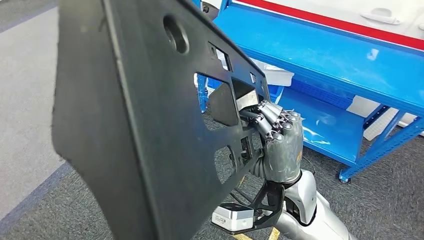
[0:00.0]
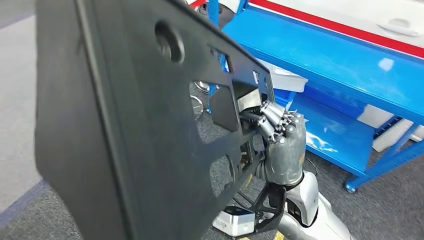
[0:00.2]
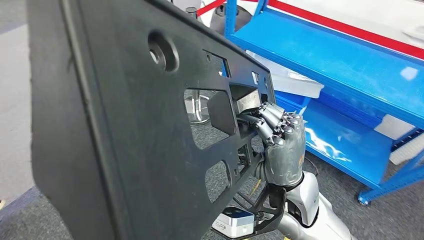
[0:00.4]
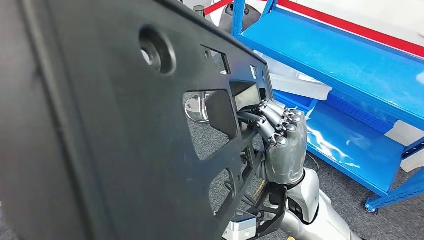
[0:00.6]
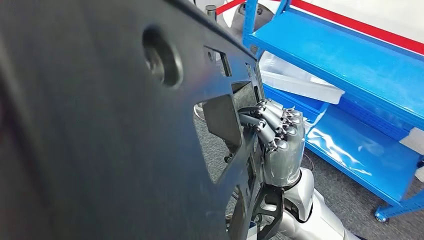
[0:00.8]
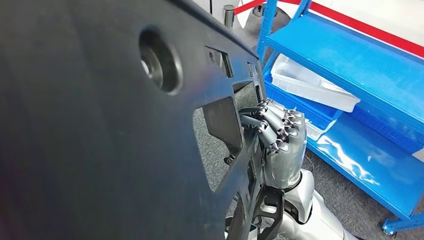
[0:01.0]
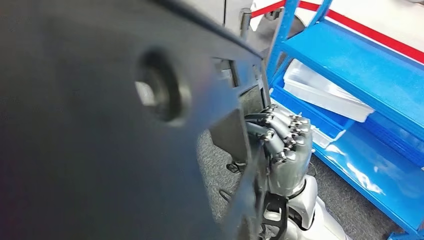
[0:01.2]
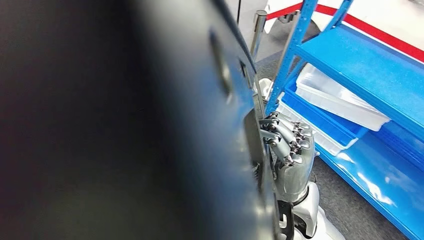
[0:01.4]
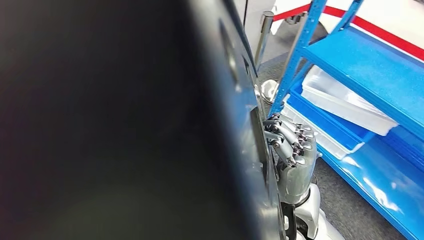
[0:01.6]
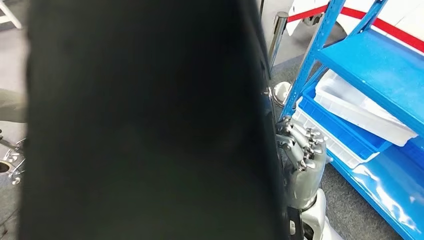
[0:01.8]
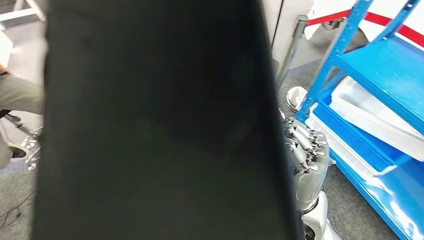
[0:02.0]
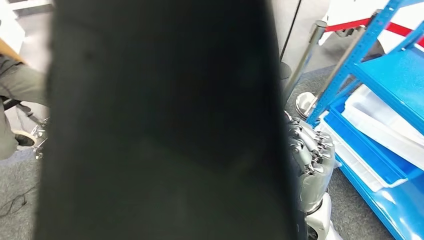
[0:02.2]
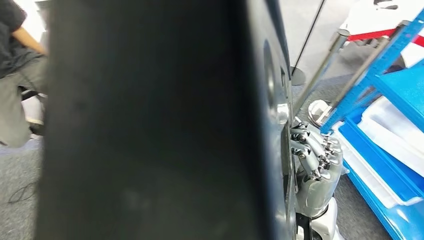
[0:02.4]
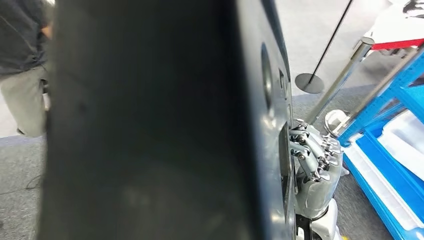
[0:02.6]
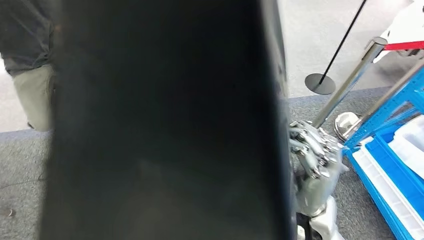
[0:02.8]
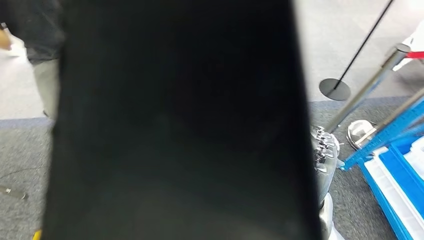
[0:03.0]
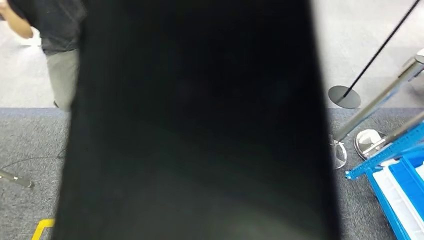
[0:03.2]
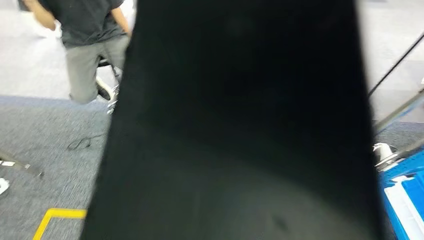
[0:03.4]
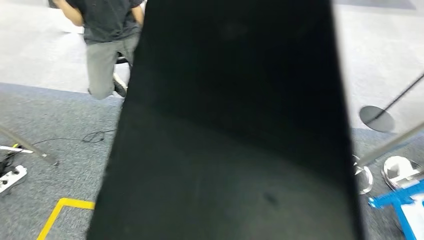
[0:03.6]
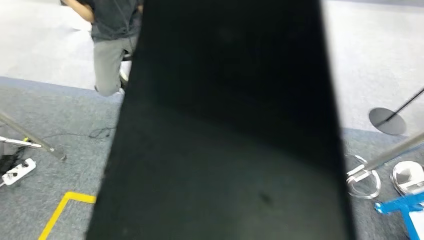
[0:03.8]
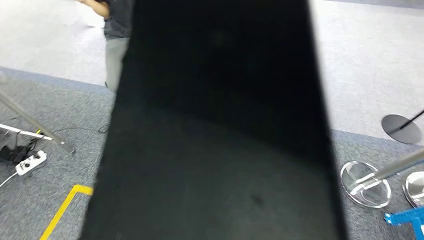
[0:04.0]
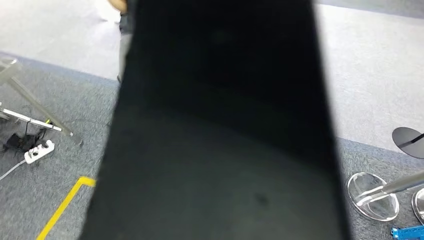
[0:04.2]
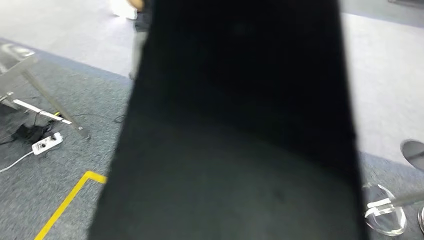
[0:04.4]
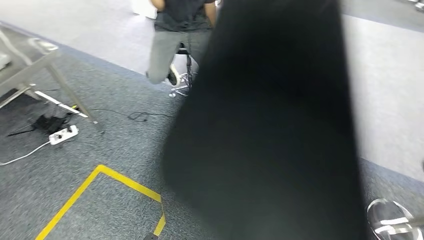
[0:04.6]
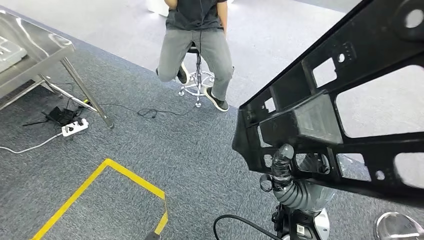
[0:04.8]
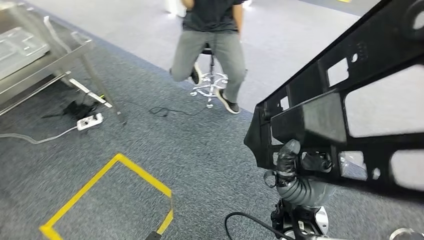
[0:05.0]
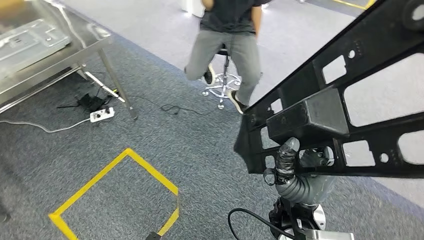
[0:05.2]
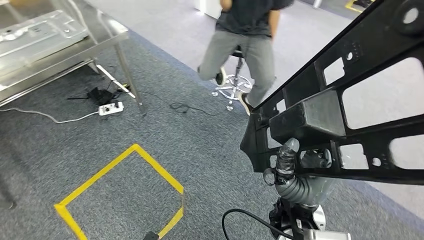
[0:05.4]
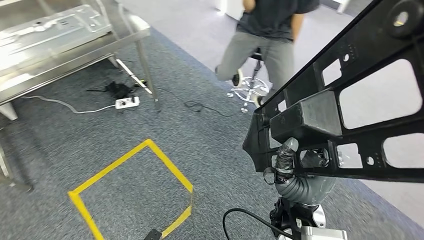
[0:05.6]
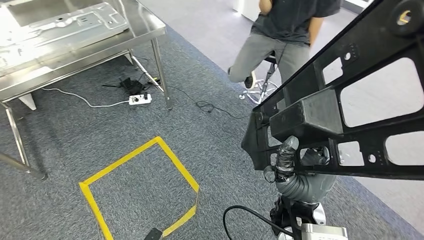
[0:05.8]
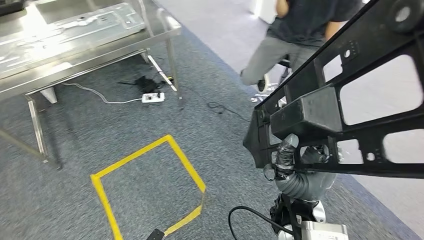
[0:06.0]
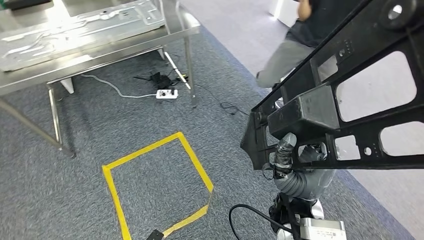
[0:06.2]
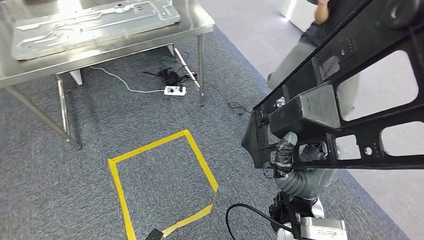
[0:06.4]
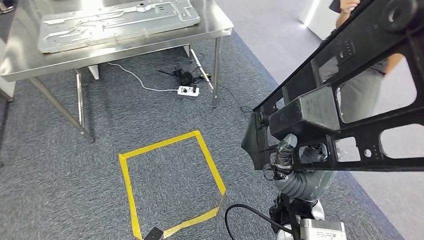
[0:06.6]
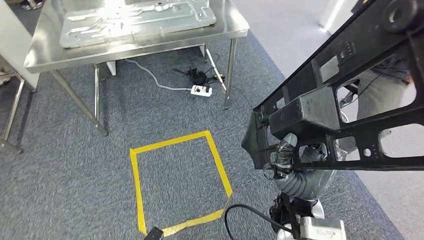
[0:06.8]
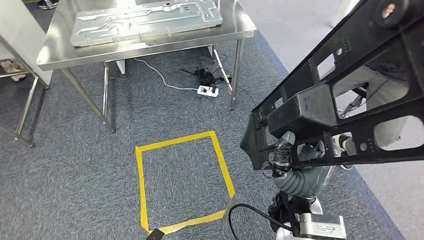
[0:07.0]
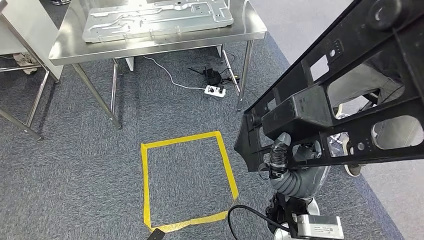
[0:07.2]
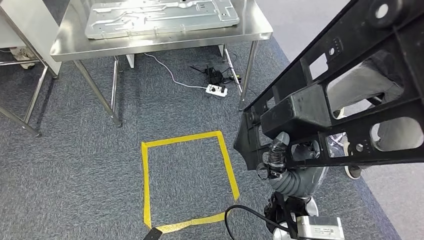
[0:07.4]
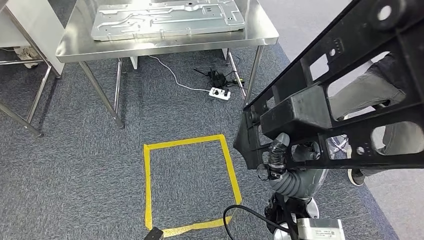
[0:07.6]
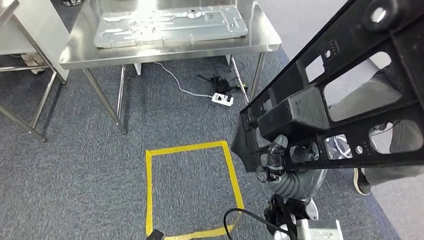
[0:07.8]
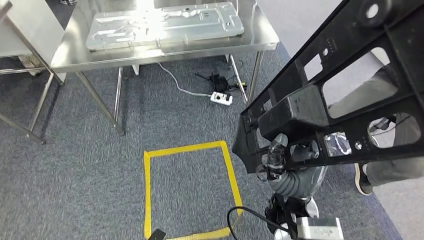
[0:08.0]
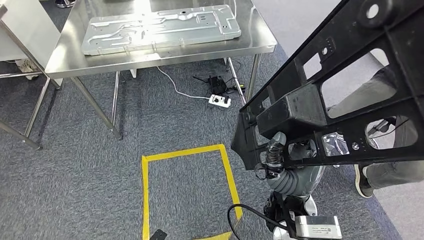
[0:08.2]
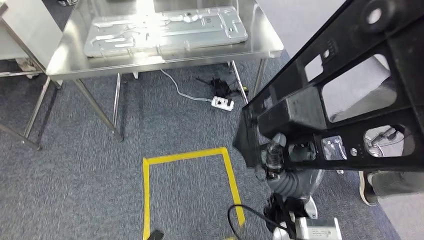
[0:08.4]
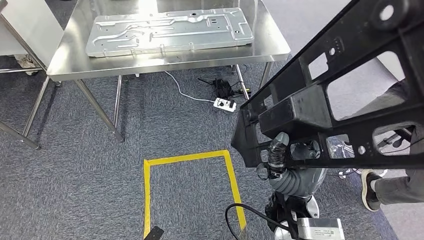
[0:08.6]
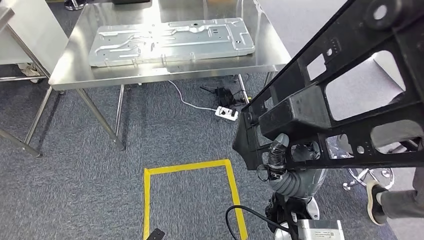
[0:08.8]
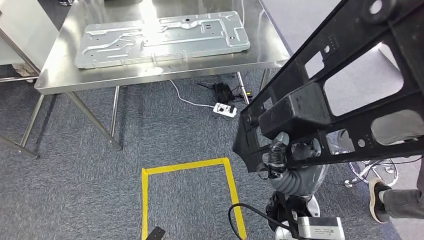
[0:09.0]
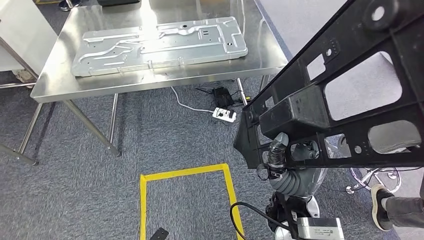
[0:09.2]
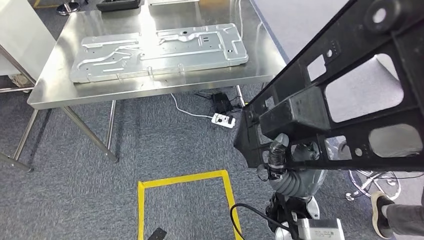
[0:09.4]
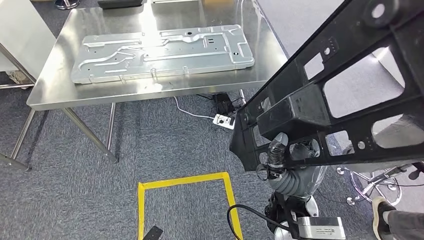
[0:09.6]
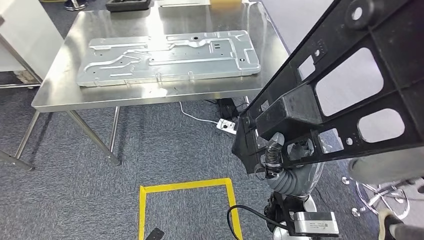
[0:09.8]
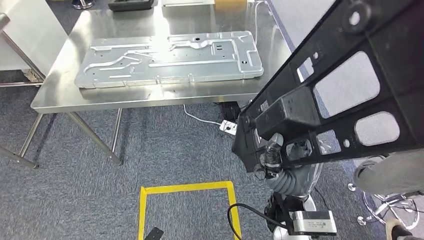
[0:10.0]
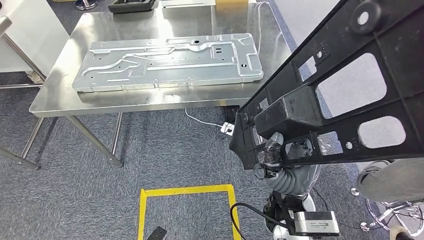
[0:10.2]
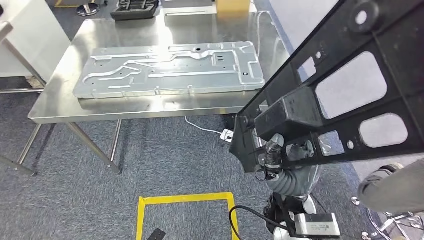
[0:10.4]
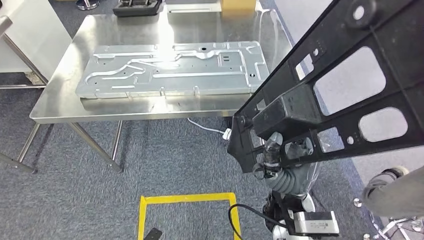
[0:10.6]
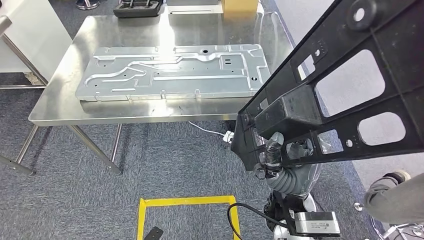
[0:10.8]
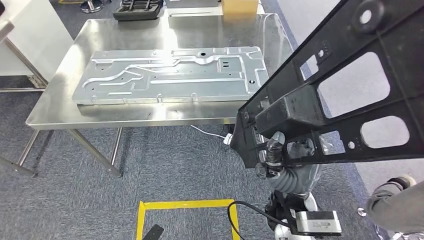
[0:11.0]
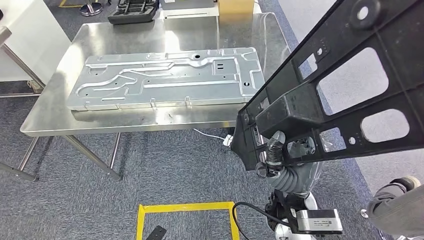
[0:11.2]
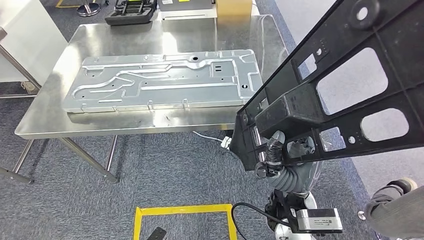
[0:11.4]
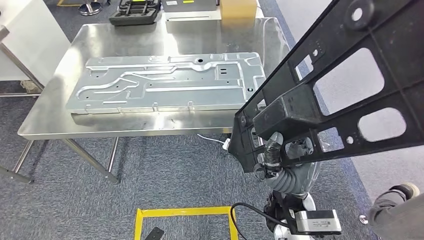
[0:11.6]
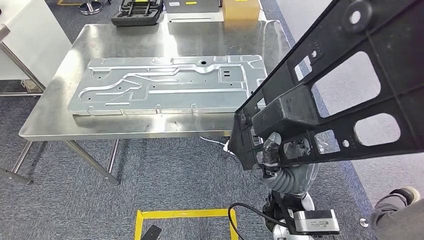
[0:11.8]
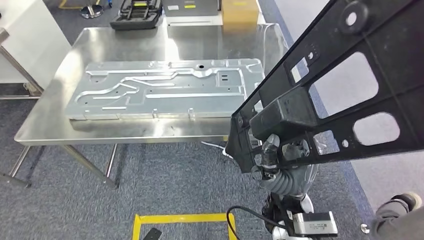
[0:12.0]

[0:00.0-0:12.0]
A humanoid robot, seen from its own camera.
Step, 0:00.0 to 0:09.0: Move the large material to the workbench.

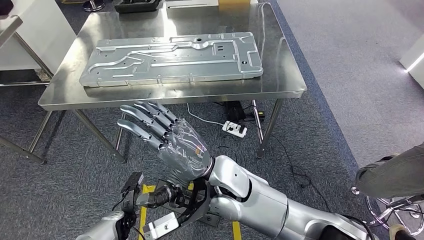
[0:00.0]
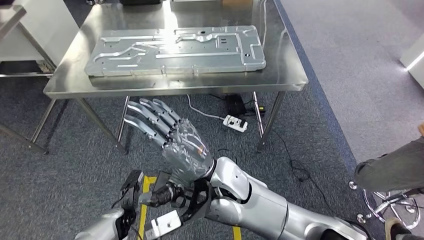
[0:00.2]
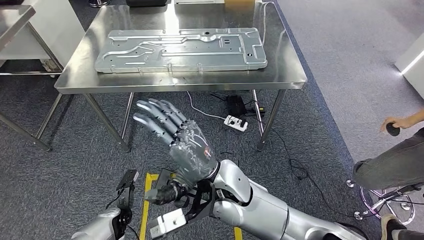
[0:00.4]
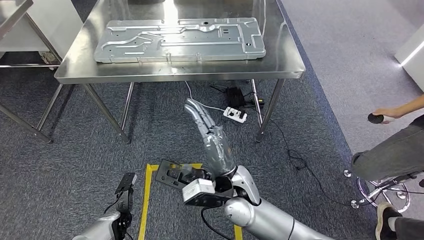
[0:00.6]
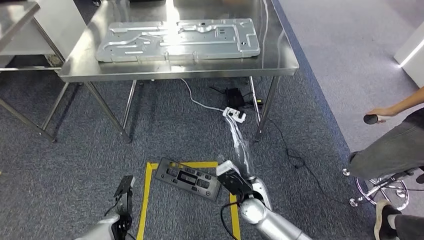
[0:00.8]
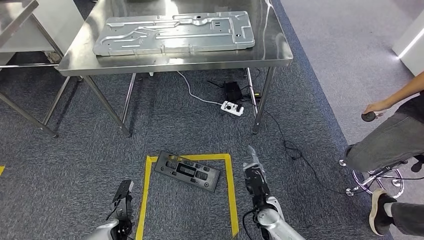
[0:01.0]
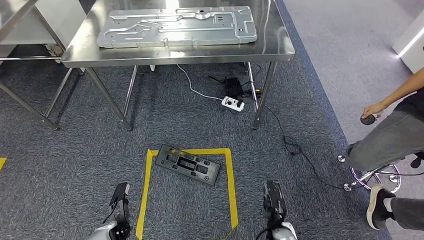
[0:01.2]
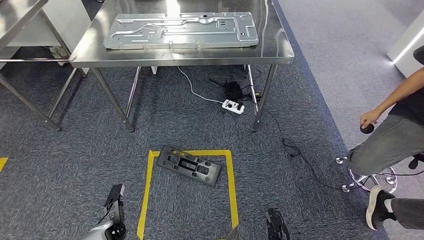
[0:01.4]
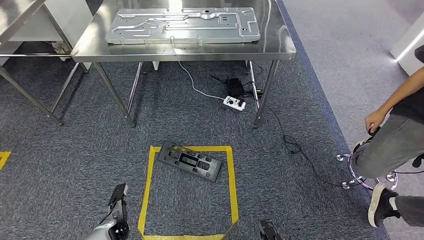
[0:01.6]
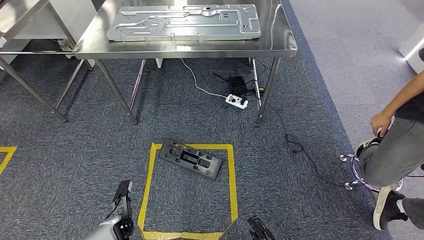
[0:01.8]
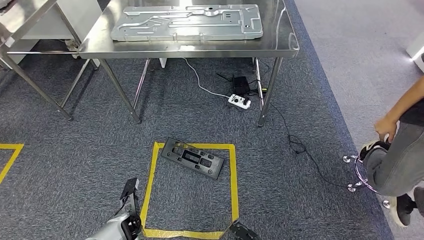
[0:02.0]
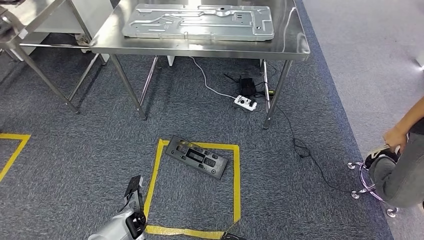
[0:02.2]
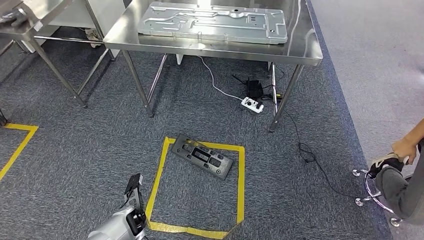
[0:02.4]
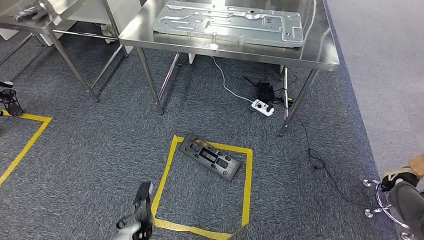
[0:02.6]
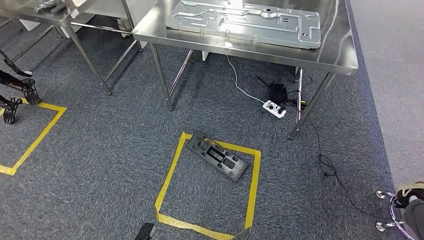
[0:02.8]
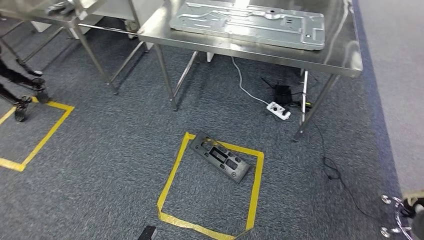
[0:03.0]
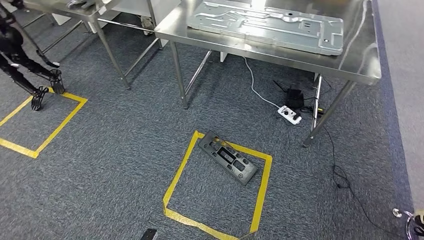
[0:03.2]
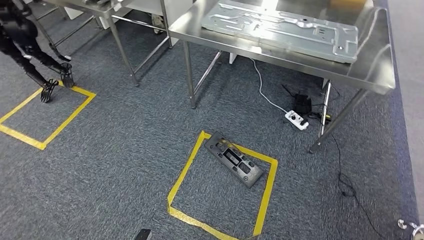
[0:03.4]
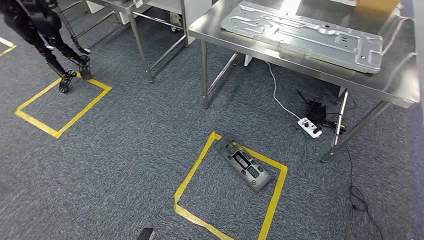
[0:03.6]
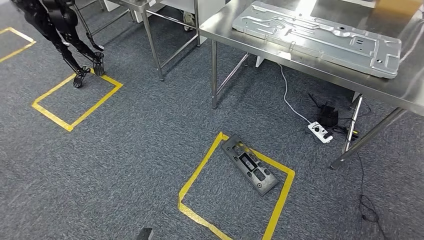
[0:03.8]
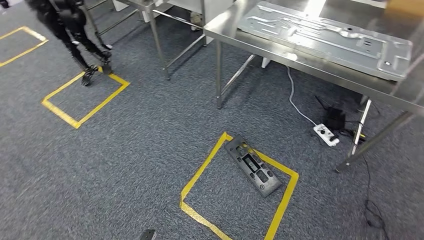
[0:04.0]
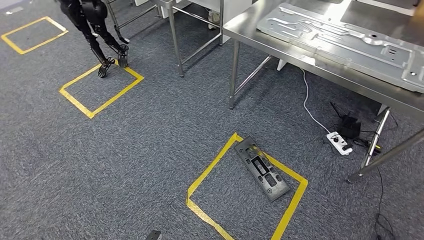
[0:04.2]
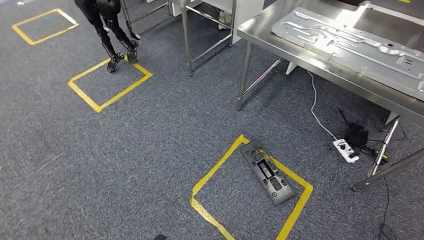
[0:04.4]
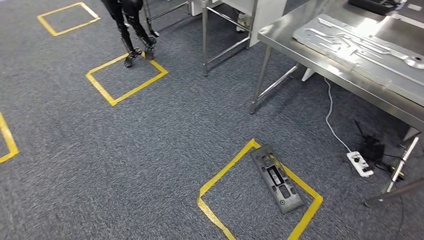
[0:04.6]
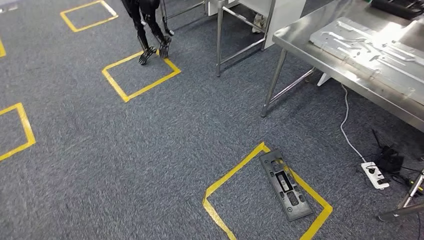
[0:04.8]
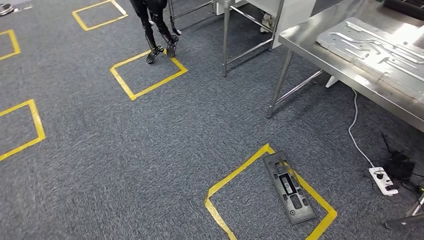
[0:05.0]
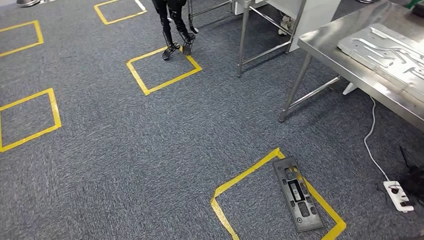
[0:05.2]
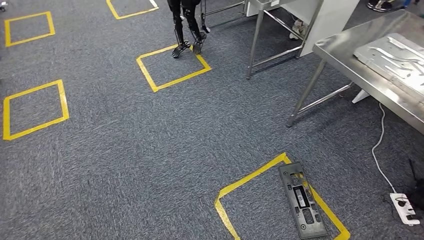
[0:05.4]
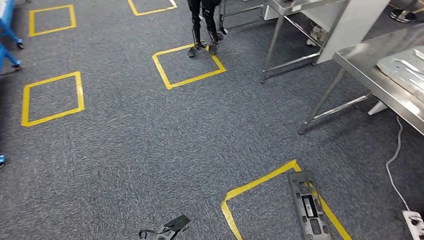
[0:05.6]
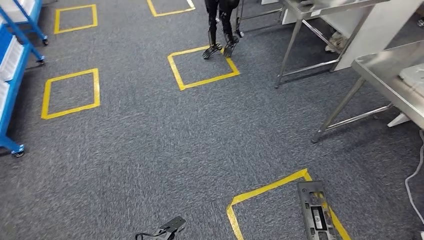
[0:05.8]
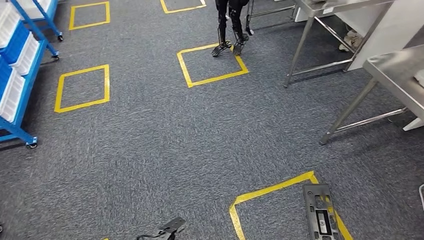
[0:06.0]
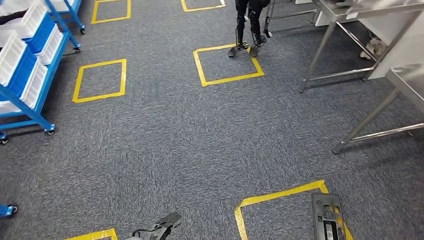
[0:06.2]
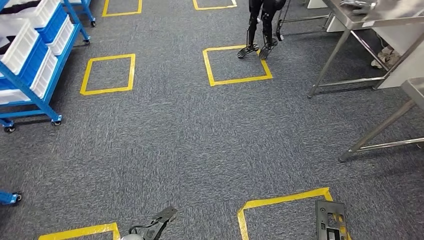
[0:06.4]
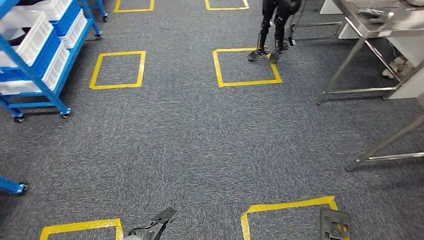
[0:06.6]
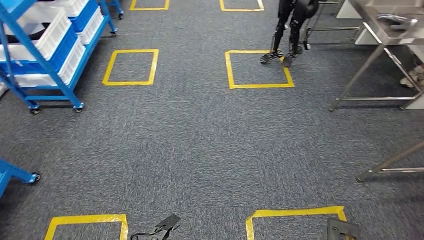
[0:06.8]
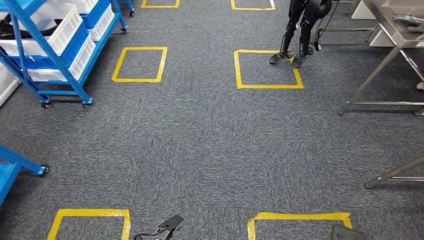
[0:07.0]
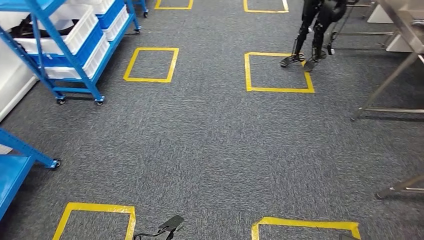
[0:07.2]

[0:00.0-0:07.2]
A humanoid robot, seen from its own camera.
Step, 0:00.0 to 0:03.0: Insert the large material into the corresponding slot on the workbench.
